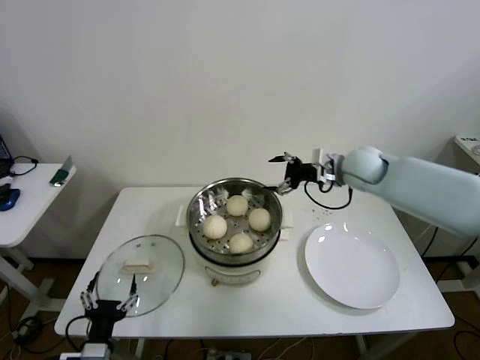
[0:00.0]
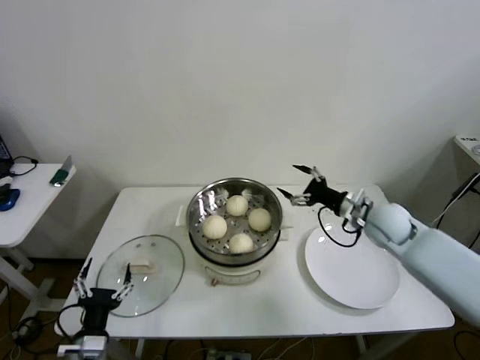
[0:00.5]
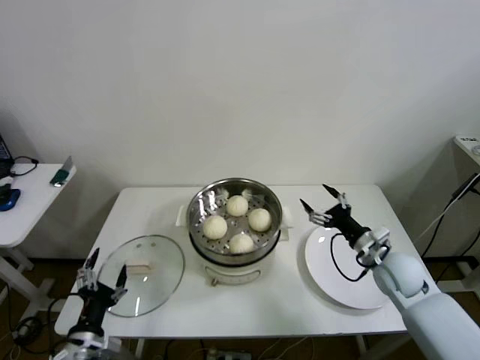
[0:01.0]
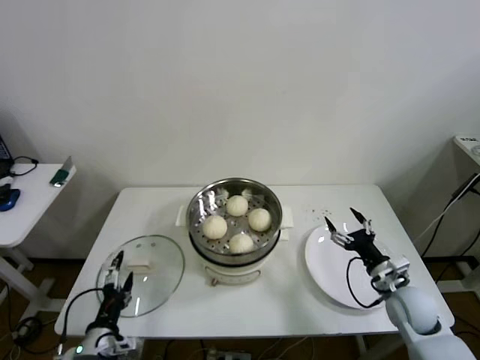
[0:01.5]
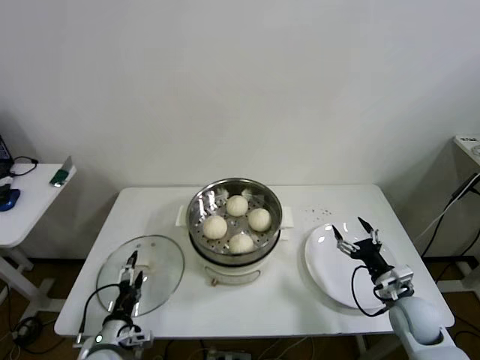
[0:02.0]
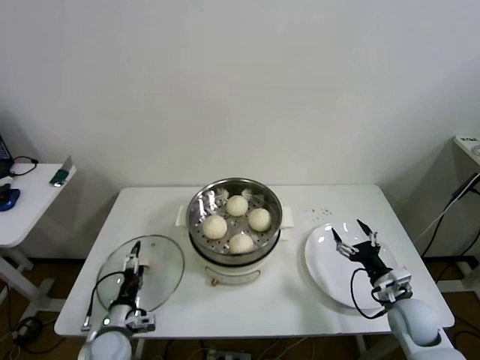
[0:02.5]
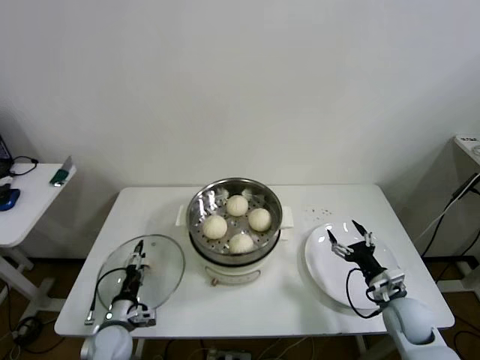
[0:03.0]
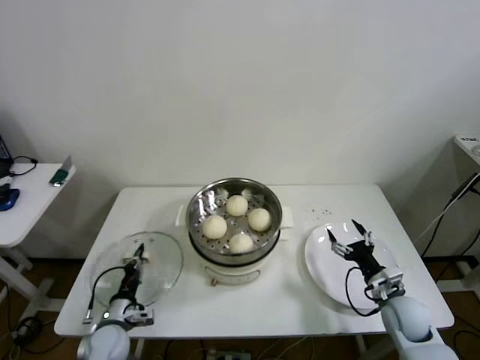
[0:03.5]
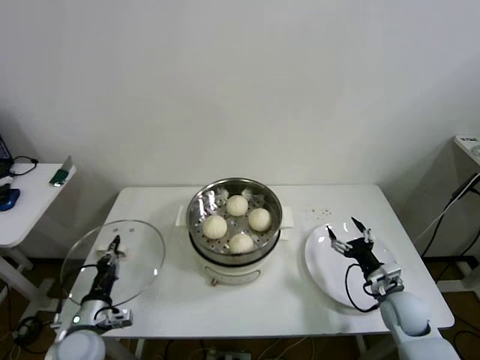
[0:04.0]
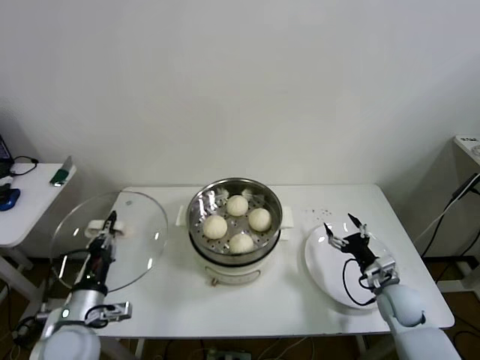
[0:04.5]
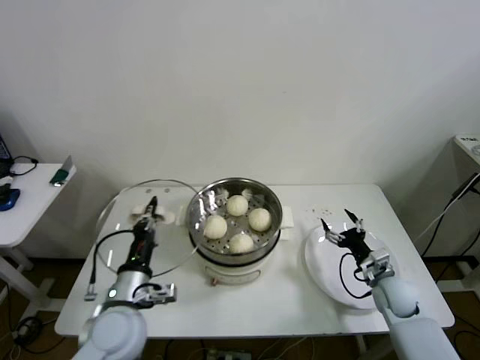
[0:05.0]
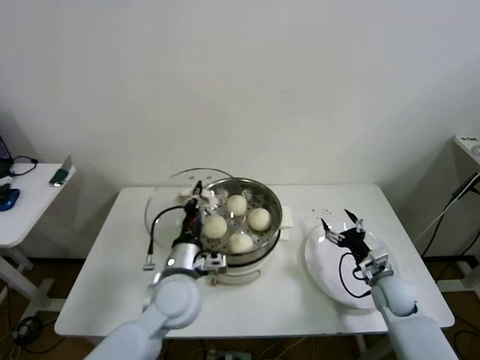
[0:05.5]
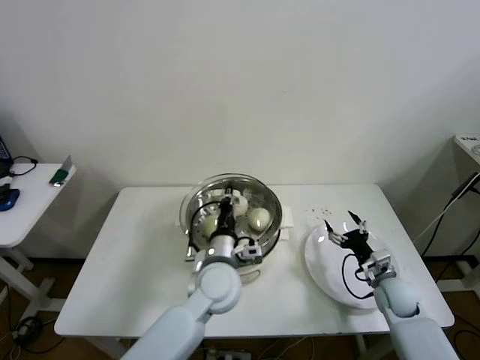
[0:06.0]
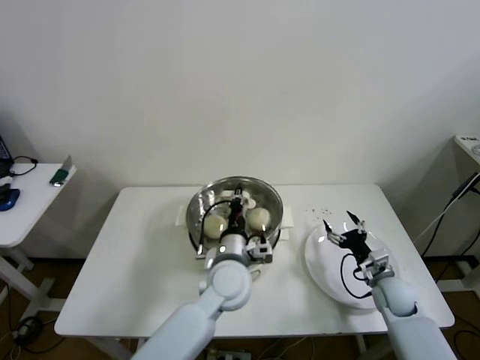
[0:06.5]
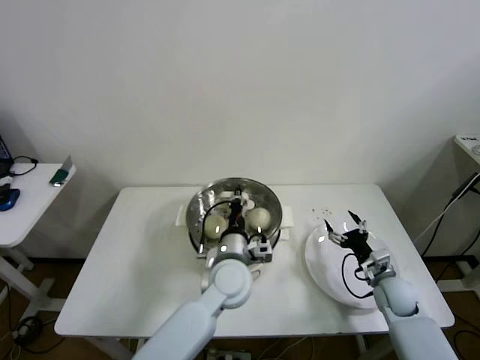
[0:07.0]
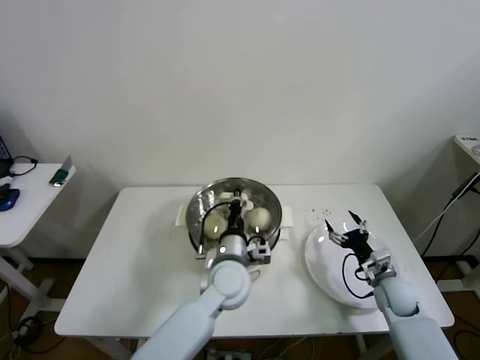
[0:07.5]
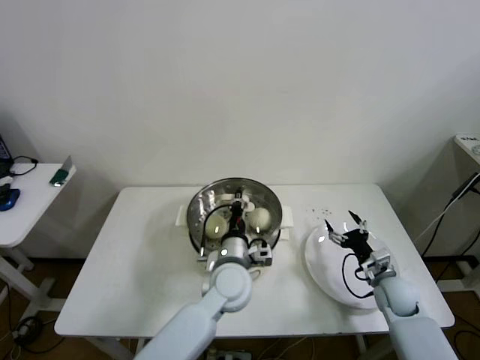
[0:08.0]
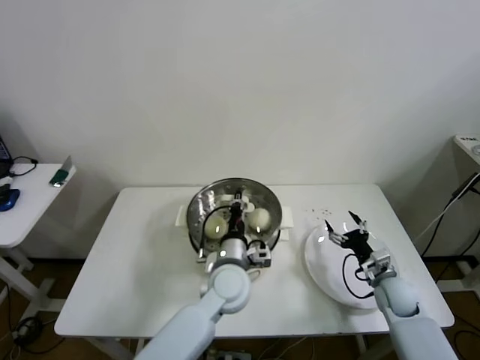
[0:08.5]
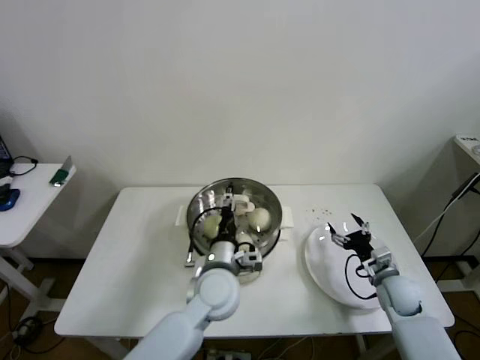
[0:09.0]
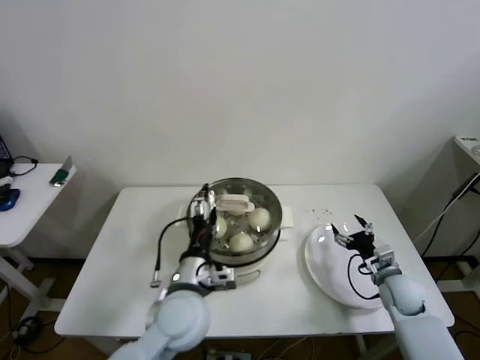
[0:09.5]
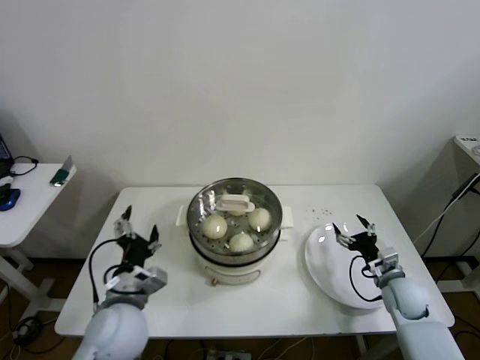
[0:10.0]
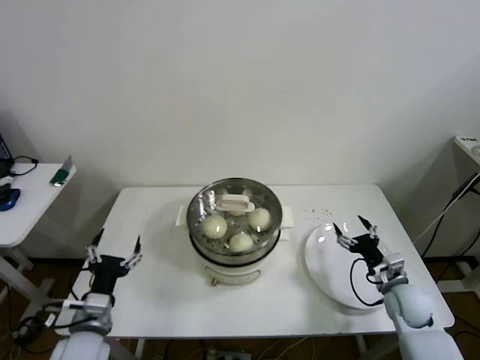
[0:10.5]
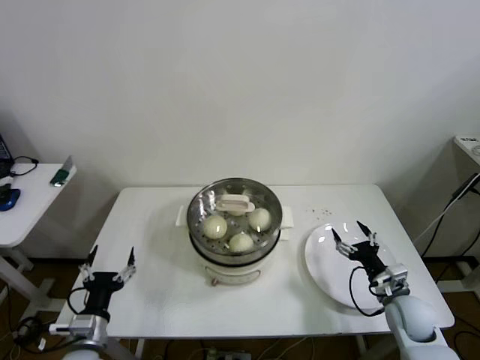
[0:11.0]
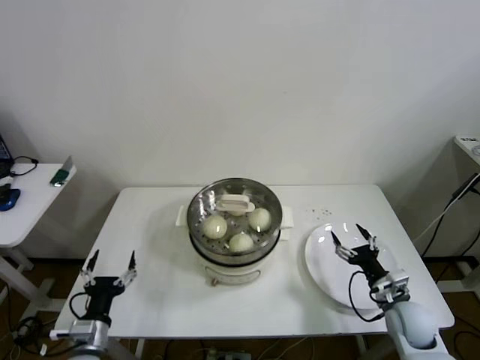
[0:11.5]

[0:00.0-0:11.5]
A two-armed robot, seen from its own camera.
Step, 0:00.0 to 0:03.5: Grasp the pot lid with left gripper.
Step, 0:04.0 to 0:09.0: Place the pot lid on the steamer with left gripper.
0:00.0 to 0:02.0: The right gripper shifts approximately 35 cm downward, backward and to the right. Meanwhile the left gripper heads forward, covering about 5 cm.
0:02.0 to 0:04.0: The left gripper ends up some 5 cm from where it was, and closes.
0:04.0 to 0:06.0: The left gripper heads to the right and upward, covering roughly 30 cm.
0:06.0 to 0:07.5: The grippers move only a little.
0:07.5 to 0:09.5: The left gripper travels backward and to the left by about 10 cm, and opens its fingers.
0:09.5 to 0:11.5: The right gripper travels backward by roughly 5 cm. The left gripper moves to the left and downward, some 25 cm.
